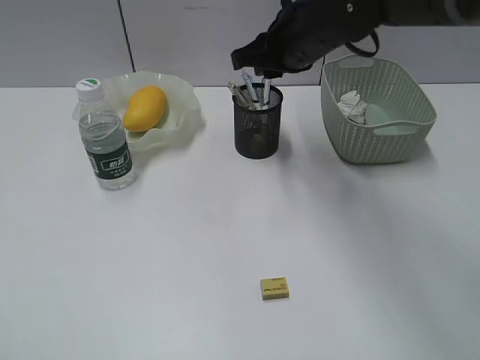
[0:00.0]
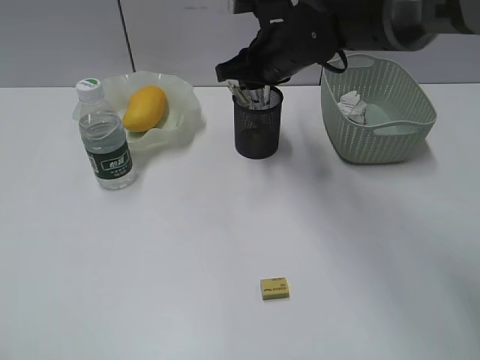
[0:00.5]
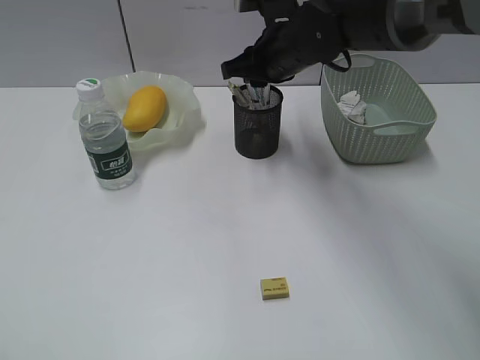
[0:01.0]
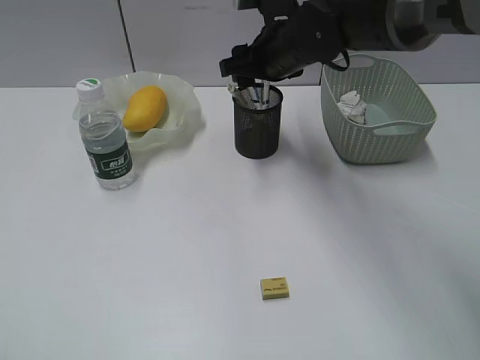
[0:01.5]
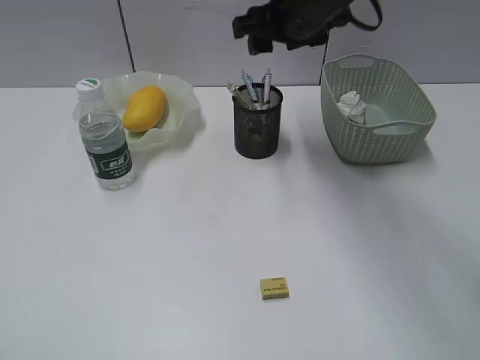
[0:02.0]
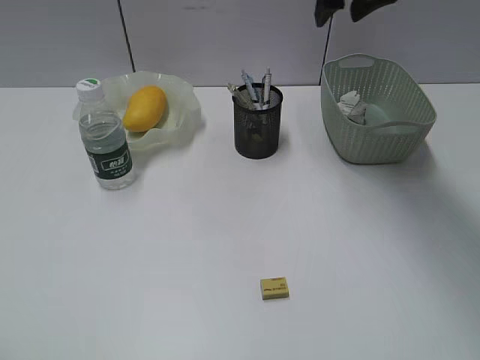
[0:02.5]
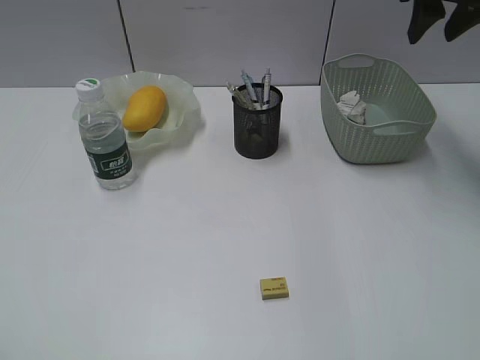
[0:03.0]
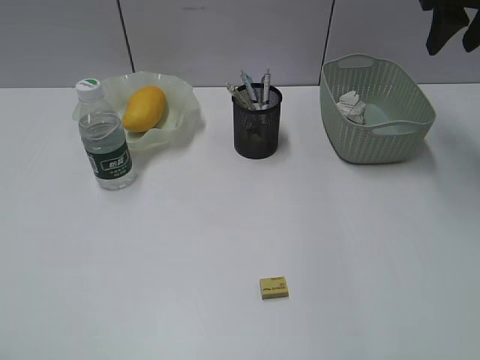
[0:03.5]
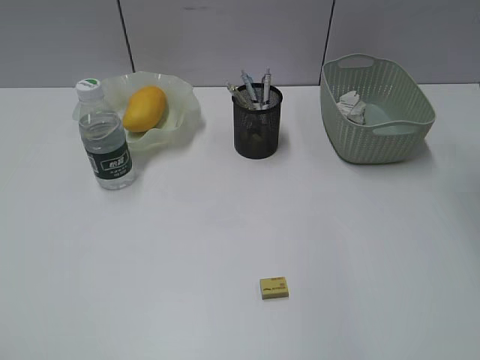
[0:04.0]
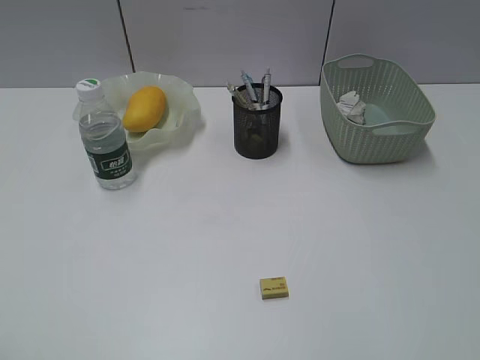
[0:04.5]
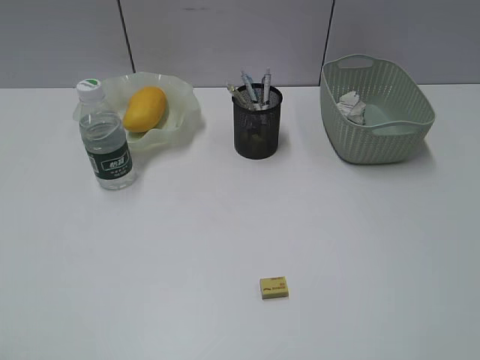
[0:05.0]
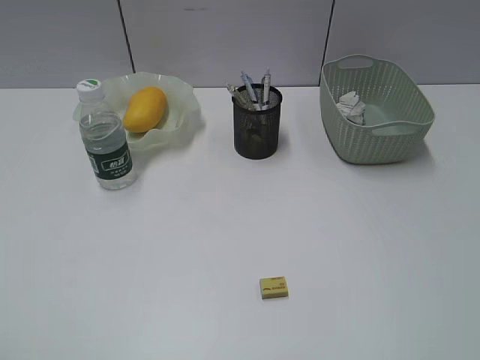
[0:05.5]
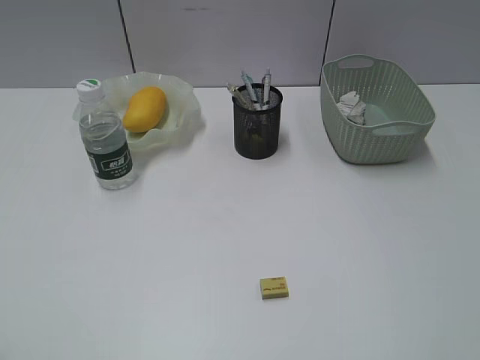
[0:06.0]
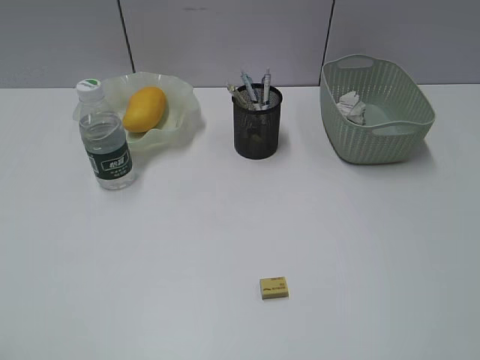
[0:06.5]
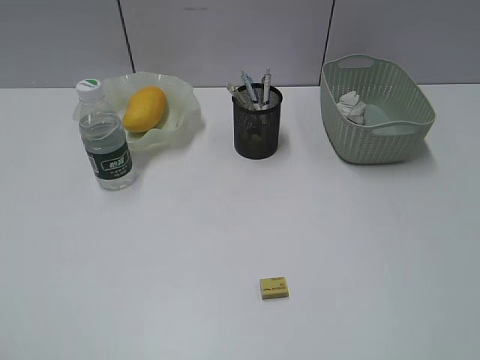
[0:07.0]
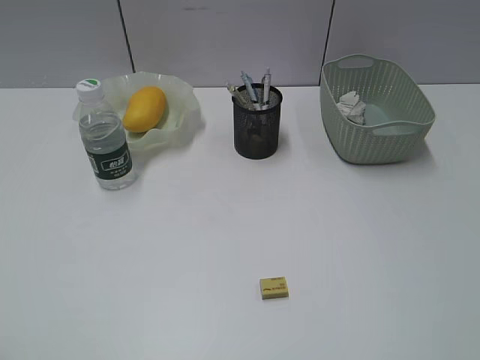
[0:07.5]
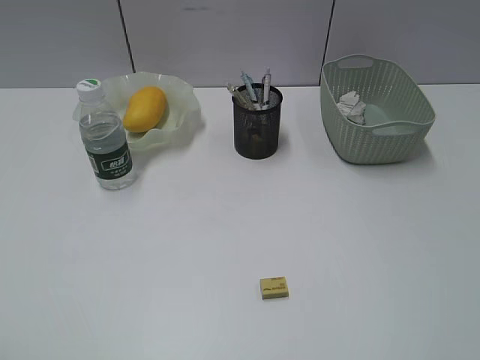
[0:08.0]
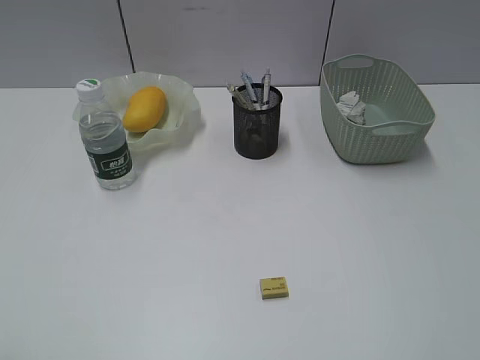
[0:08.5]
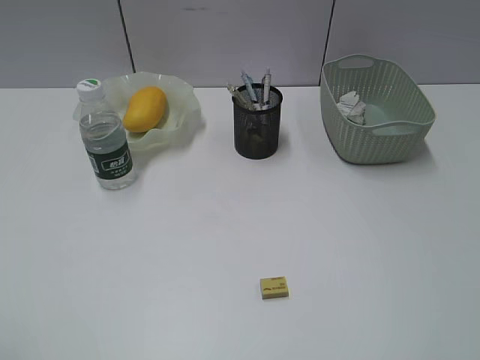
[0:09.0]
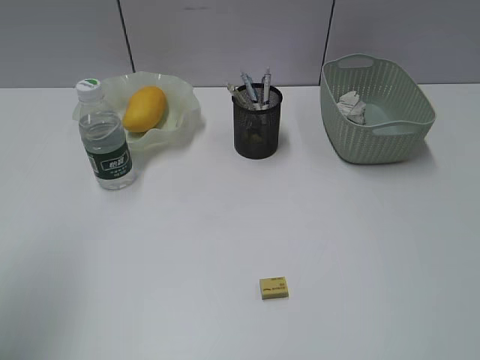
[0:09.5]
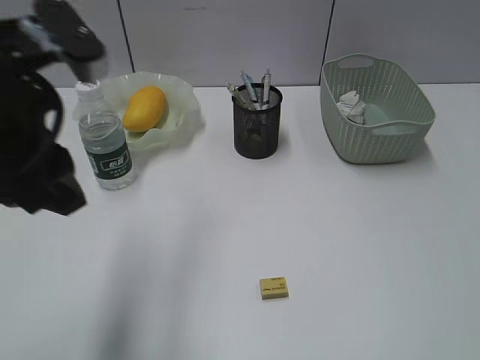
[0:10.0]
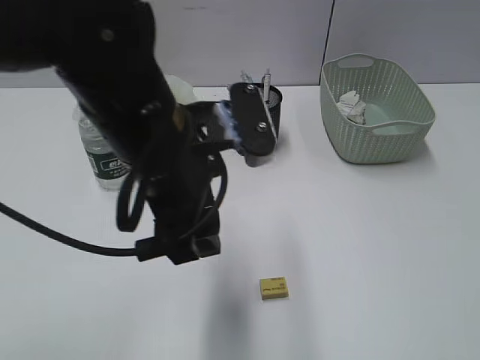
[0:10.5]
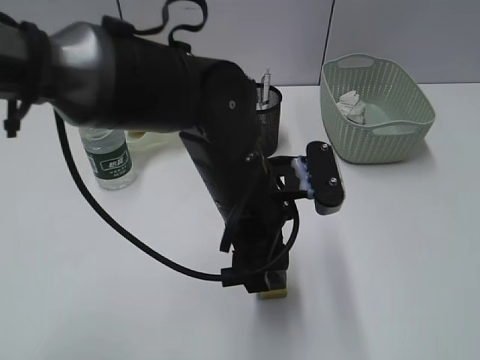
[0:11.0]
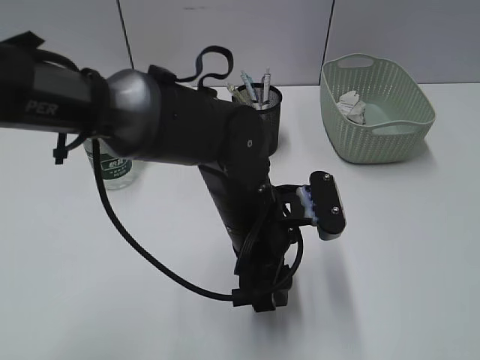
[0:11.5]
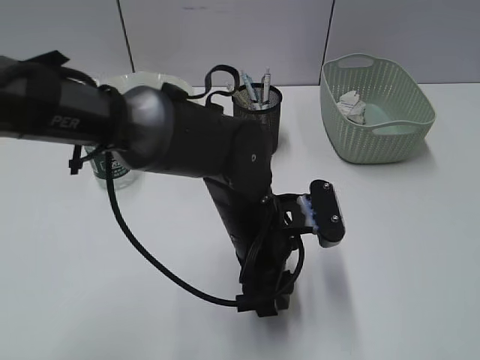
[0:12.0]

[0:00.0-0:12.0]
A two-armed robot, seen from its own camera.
Step, 0.0 to 1.5 s: Place the eraser in pen holder with right gripper.
0.0 to 2.0 s: The right gripper opens its fingers.
2.0 to 4.0 s: The right gripper heads to the right and backward, covering some 25 cm.
6.0 to 8.0 s: The two grippers keep their place.
8.0 to 10.0 s: The left gripper moves forward and to the right, about 25 cm.
10.0 to 12.0 s: The left gripper shifts approximately 25 cm to the right and downward.

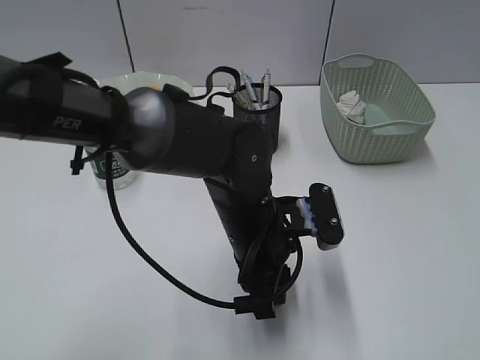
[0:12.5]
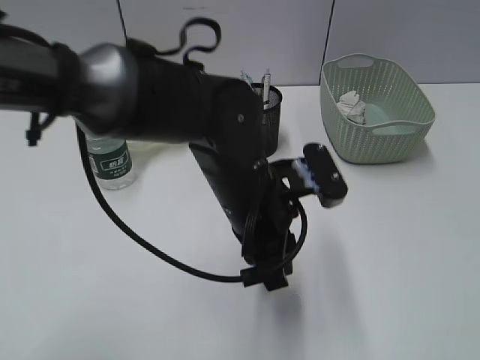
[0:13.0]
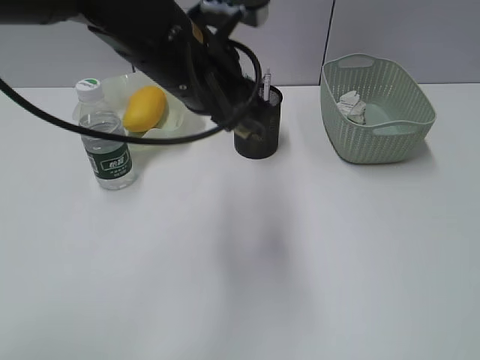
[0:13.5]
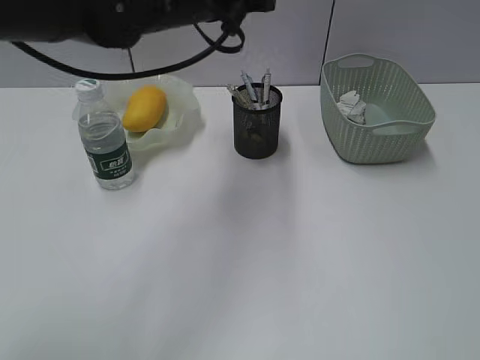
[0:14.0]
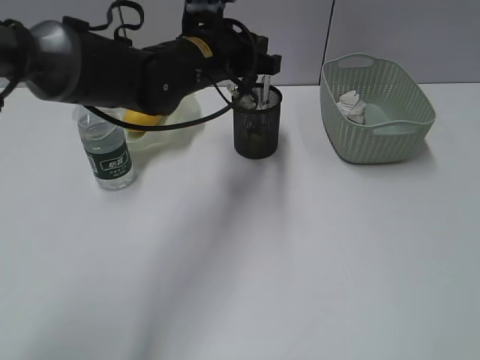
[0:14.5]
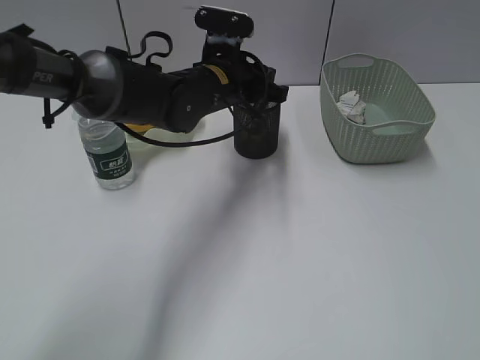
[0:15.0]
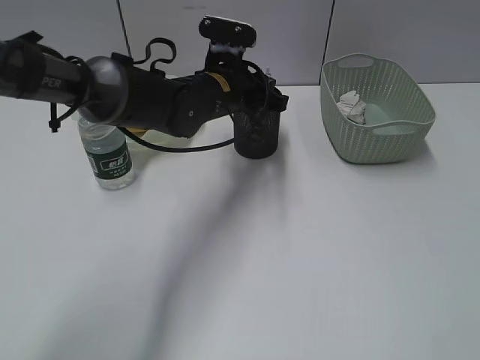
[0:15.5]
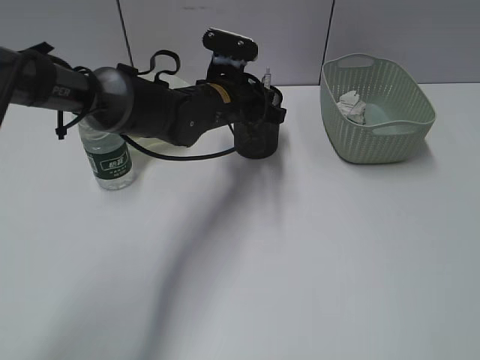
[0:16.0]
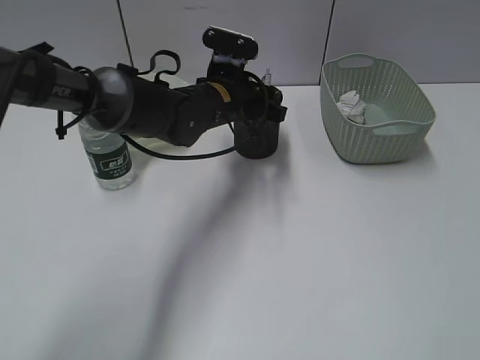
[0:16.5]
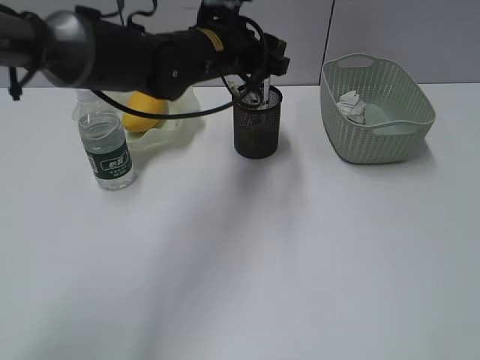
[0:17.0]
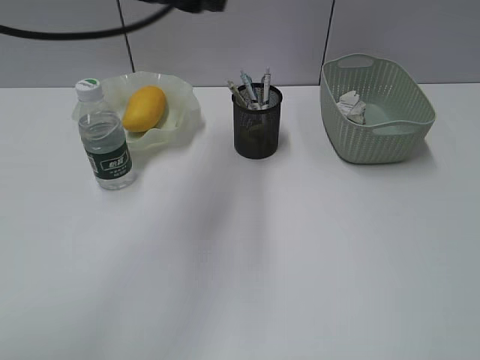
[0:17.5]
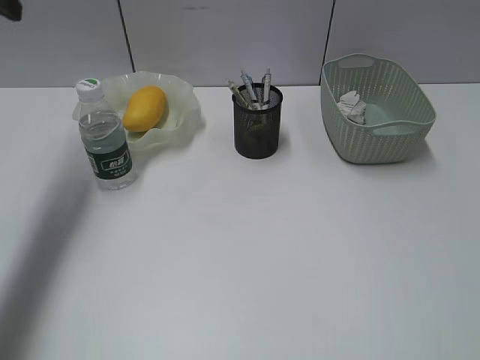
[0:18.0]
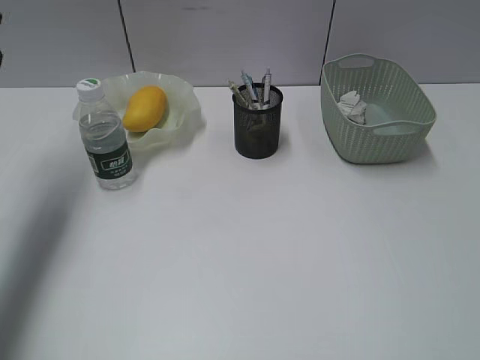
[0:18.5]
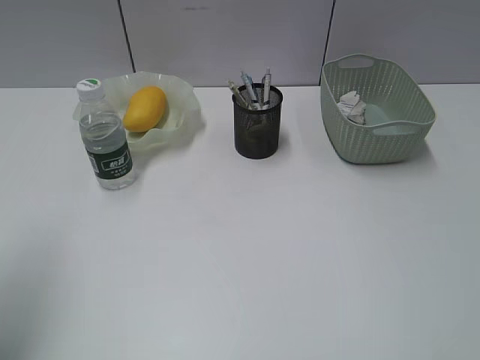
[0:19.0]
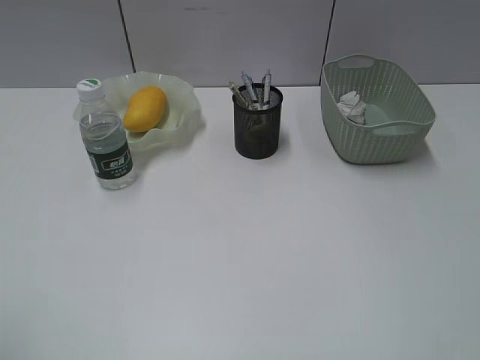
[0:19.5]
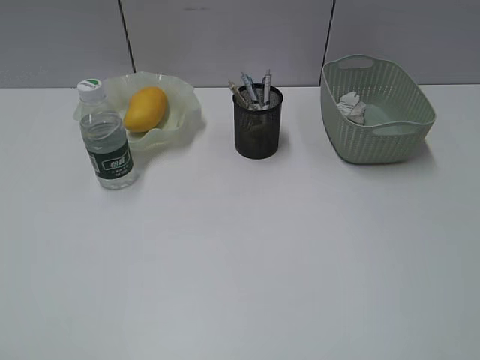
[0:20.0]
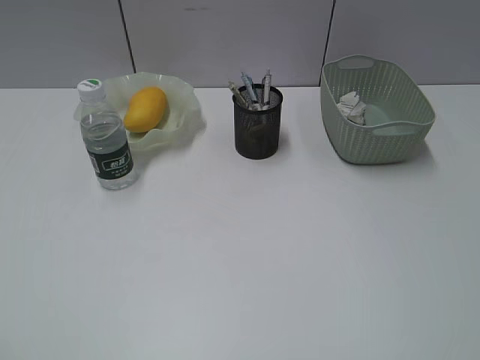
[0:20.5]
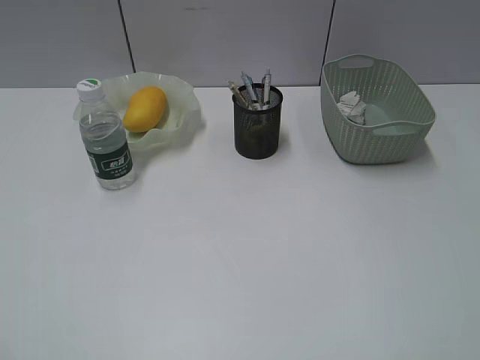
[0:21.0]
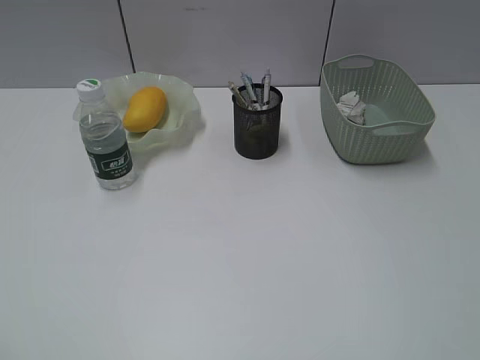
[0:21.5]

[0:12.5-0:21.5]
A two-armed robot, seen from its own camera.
Step, 13.0 to 16.5 s: Place the eraser in pen holder with left gripper.
12.5 to 14.5 s: The left gripper heads forward and upward, covering approximately 20 cm.
14.5 to 17.0 s: The left gripper opens.
17.0 to 19.5 s: The left gripper heads backward and to the left, covering some 50 cm.

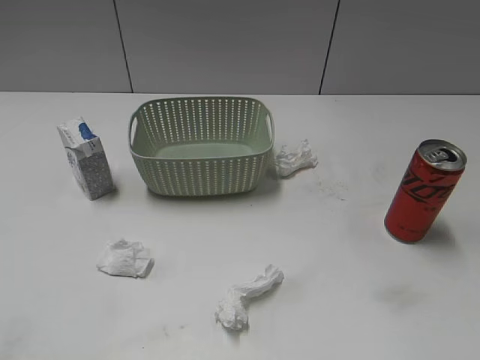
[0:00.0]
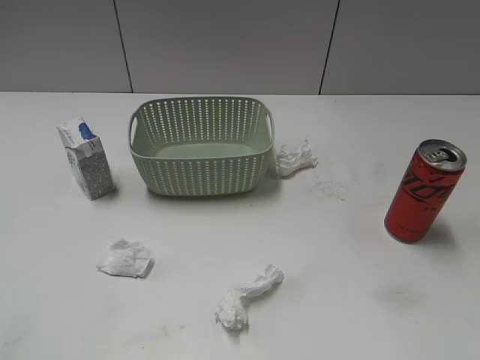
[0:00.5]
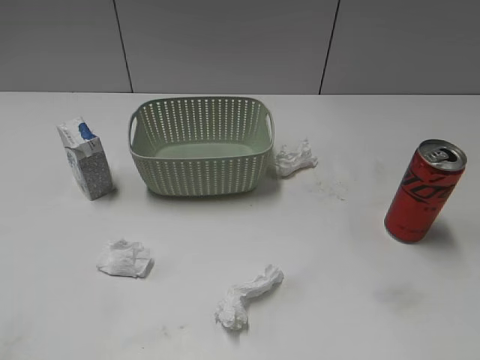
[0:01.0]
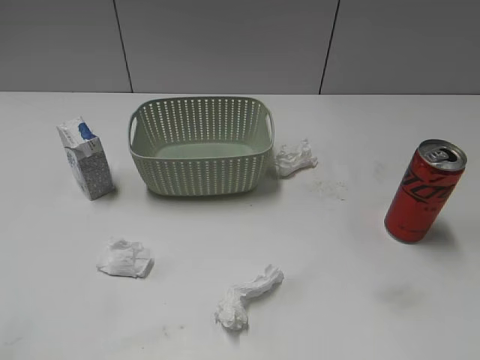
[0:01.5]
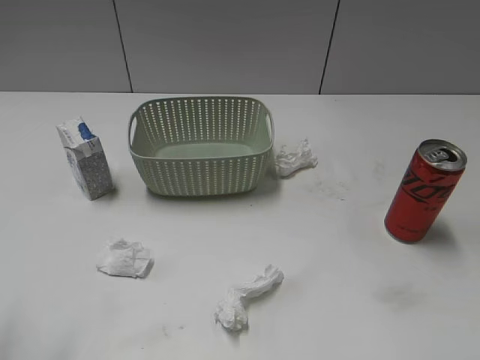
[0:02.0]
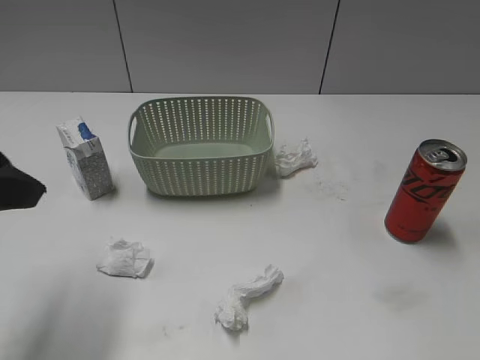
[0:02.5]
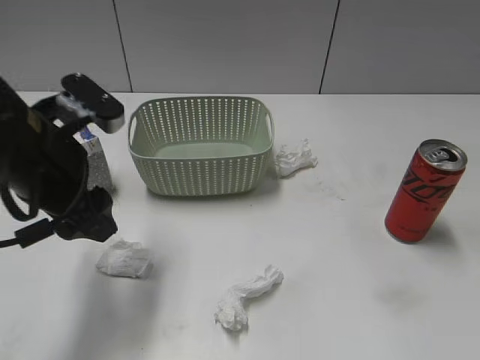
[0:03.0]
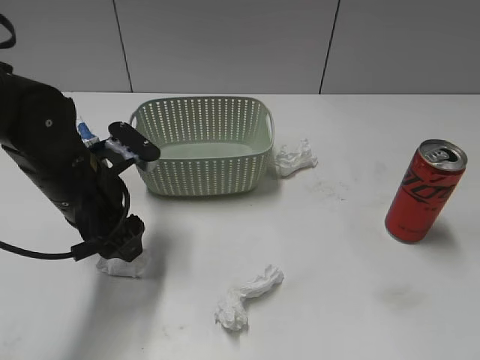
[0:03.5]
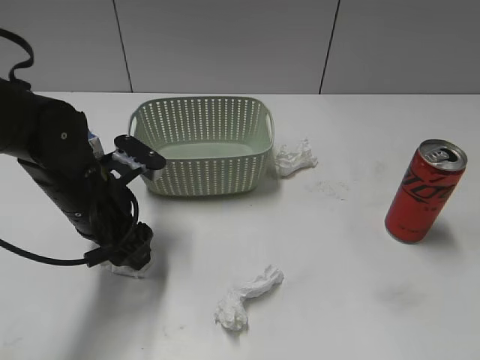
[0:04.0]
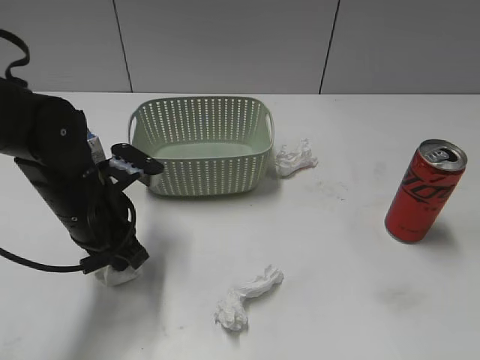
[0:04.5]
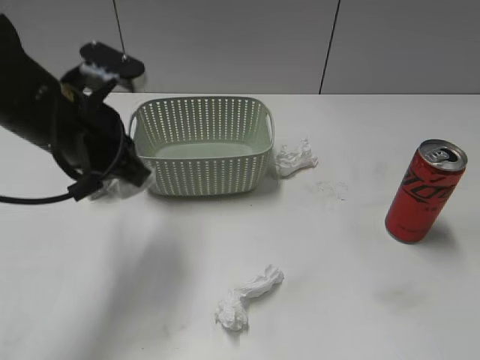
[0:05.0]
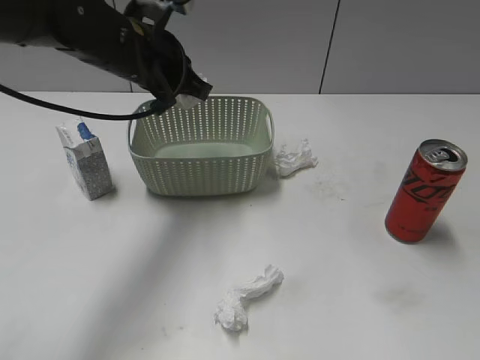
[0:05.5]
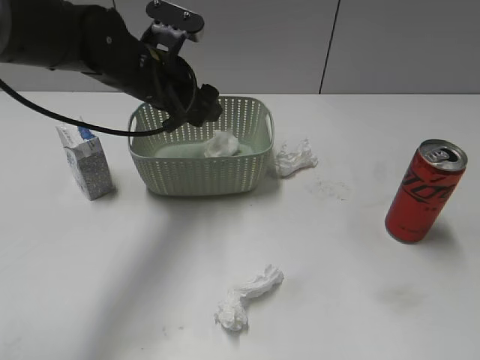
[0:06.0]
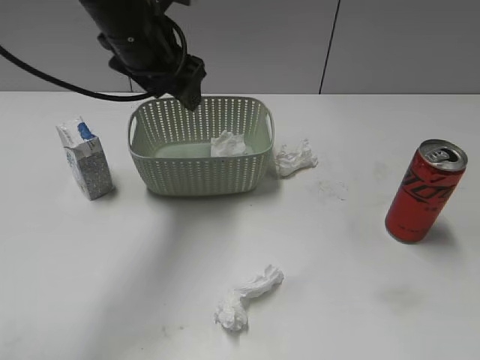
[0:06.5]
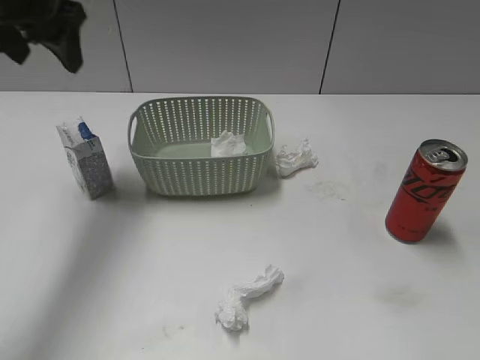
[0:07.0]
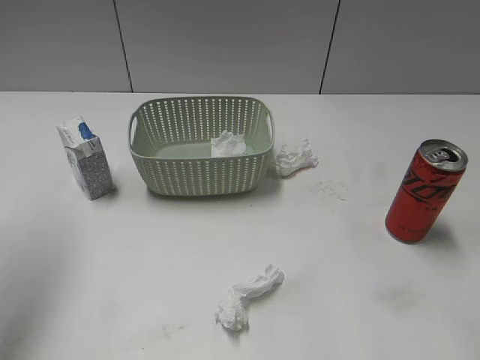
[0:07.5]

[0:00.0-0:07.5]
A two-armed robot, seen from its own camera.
Step, 2.5 to 4.5 s: Grasp the waste paper with left gripper.
Step, 5.0 to 6.0 s: Place the waste paper in the basket with left gripper.
2.0 to 4.0 s: The left gripper goes approximately 30 cm downward, forward and to the right.
4.0 to 5.5 s: The left gripper moves upward and forward, approximately 15 cm, and closes its fingers.
5.5 to 7.5 s: The left gripper is displaced to the left, upward and backward by approximately 25 cm, and opens its fingers. Meanwhile the right gripper is displaced forward by some 15 cm.
